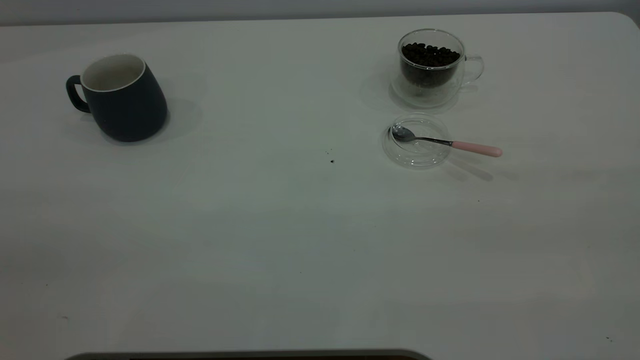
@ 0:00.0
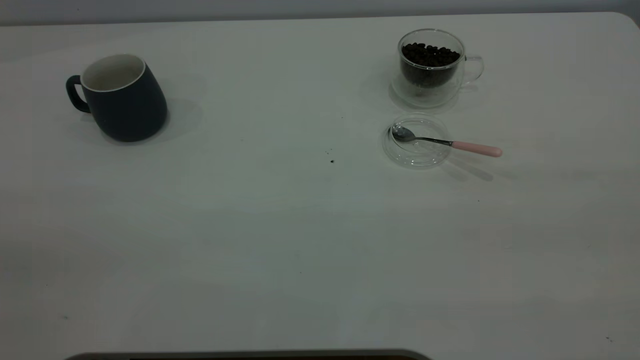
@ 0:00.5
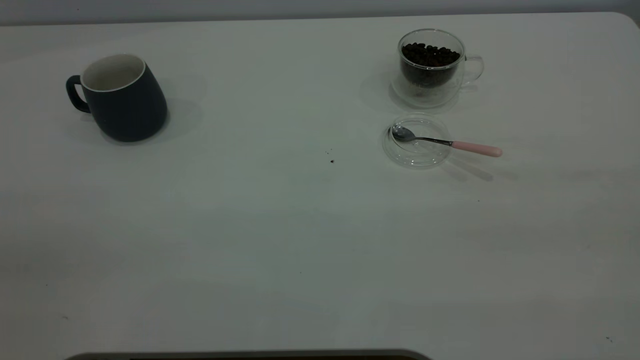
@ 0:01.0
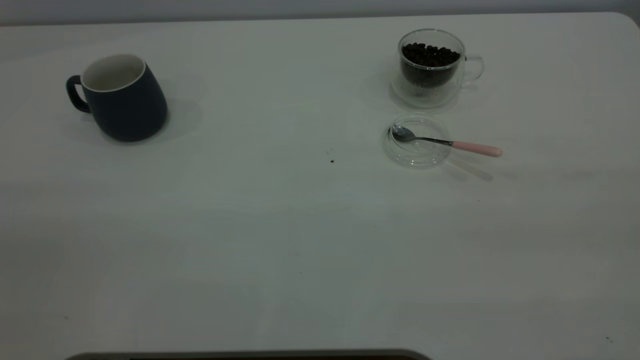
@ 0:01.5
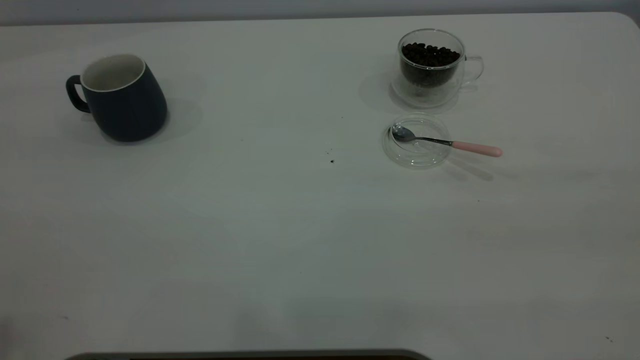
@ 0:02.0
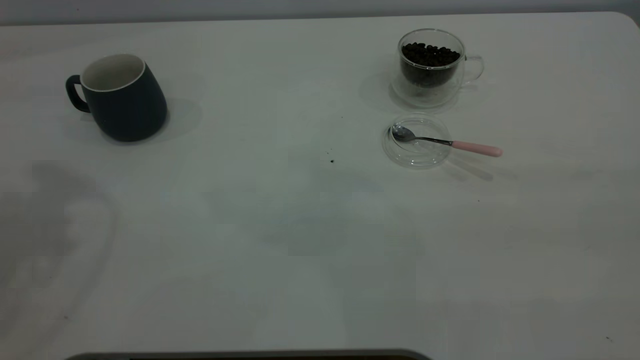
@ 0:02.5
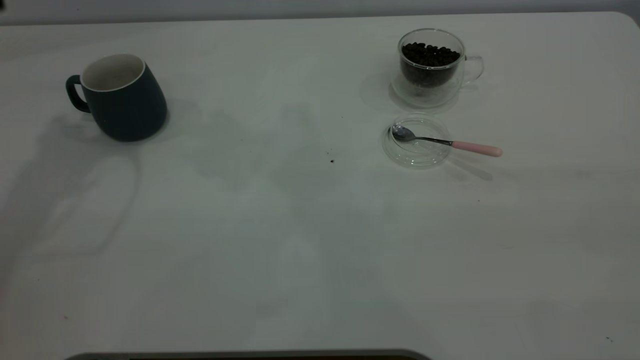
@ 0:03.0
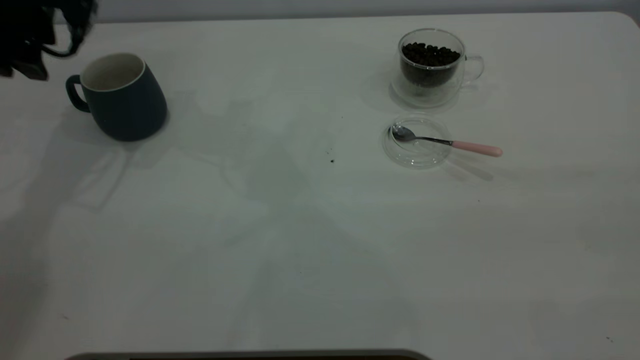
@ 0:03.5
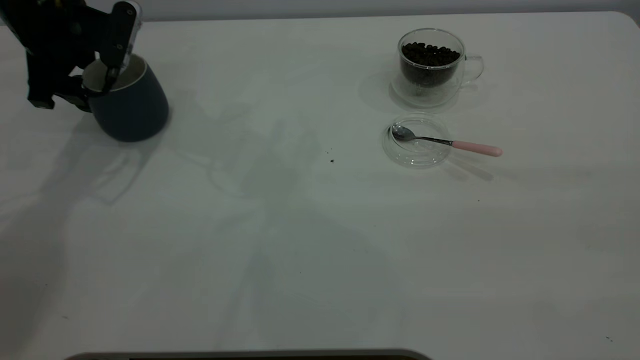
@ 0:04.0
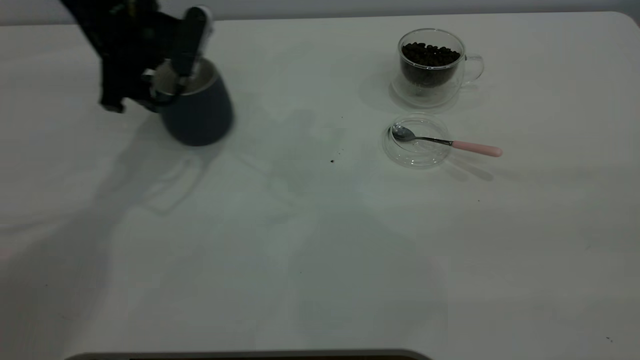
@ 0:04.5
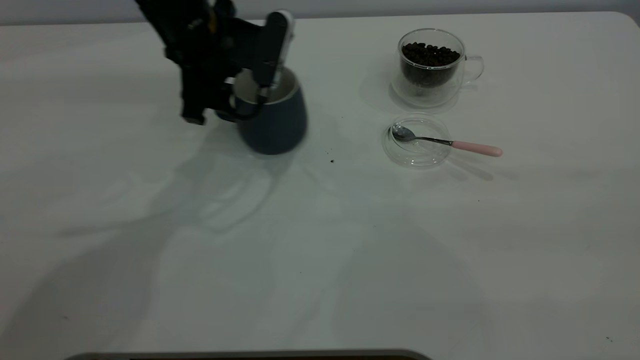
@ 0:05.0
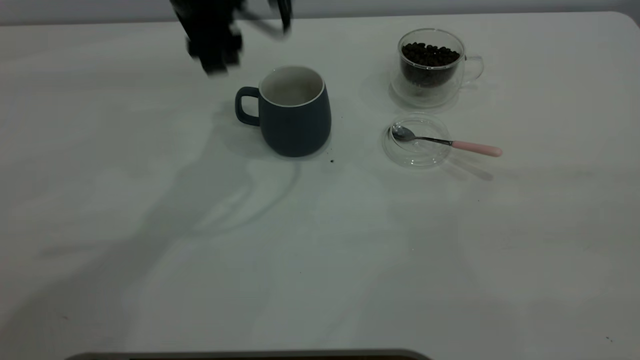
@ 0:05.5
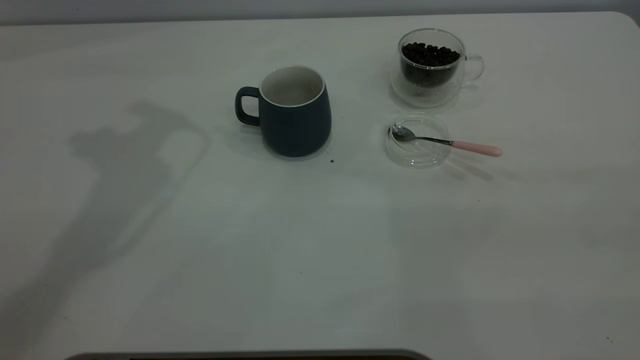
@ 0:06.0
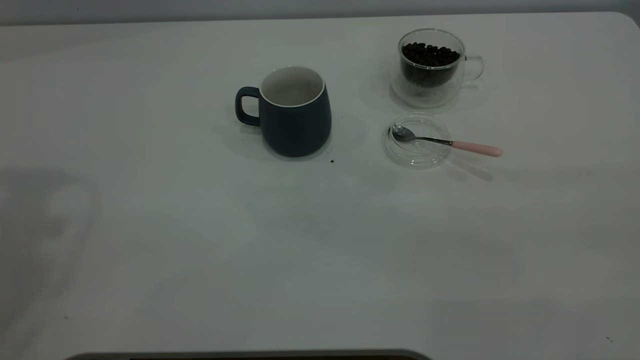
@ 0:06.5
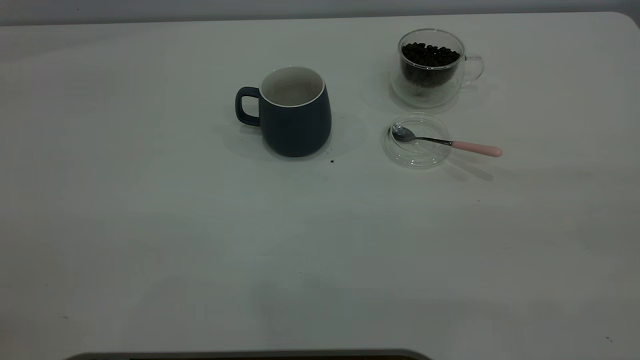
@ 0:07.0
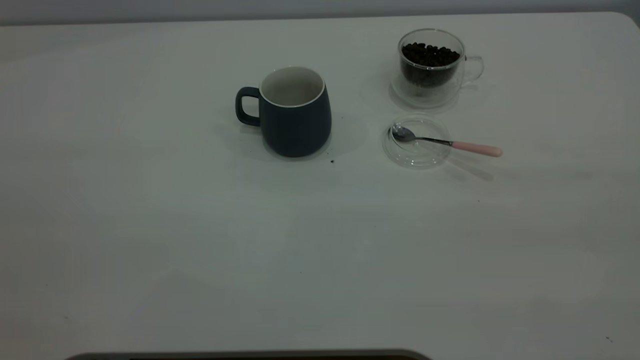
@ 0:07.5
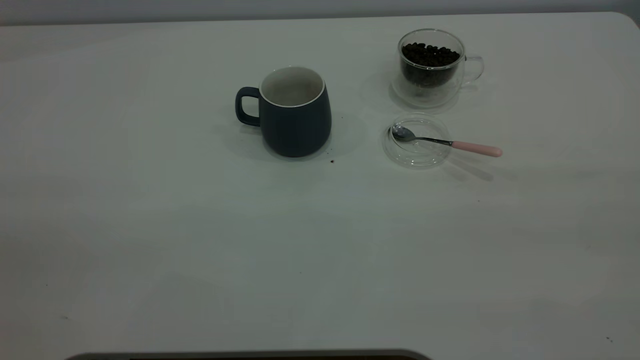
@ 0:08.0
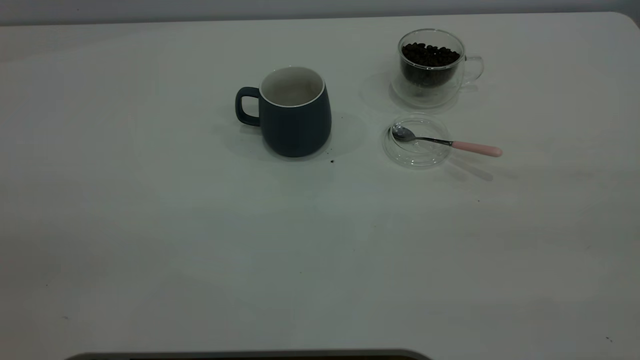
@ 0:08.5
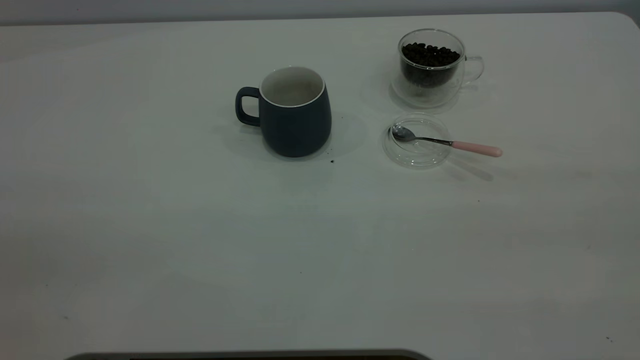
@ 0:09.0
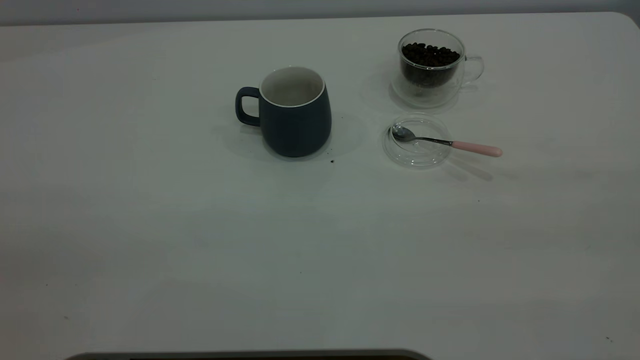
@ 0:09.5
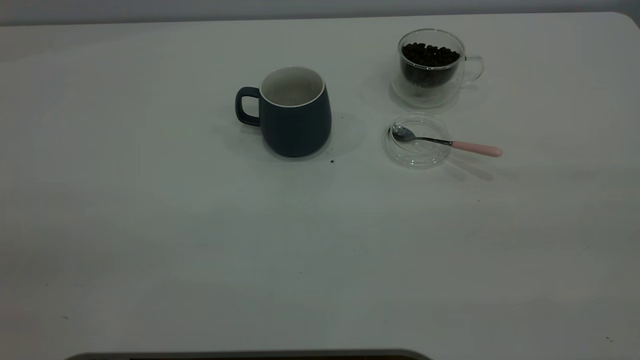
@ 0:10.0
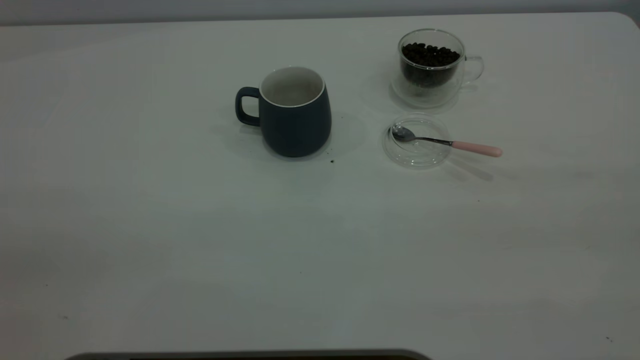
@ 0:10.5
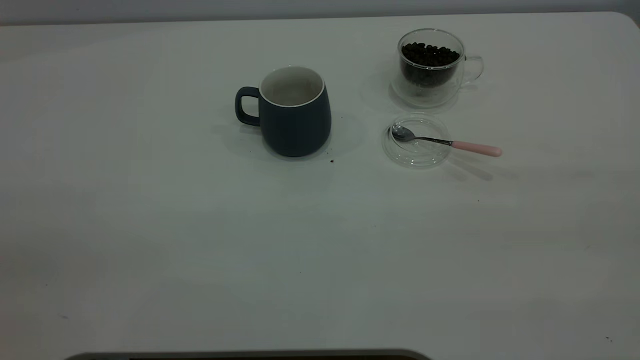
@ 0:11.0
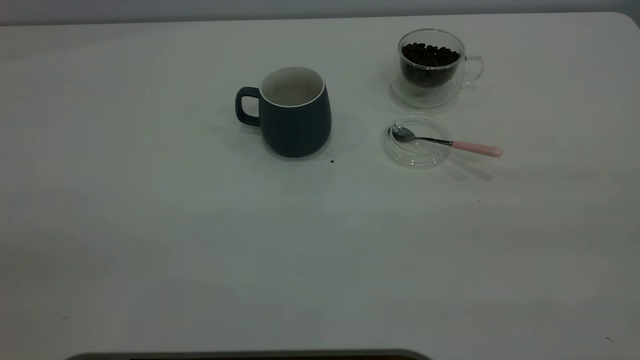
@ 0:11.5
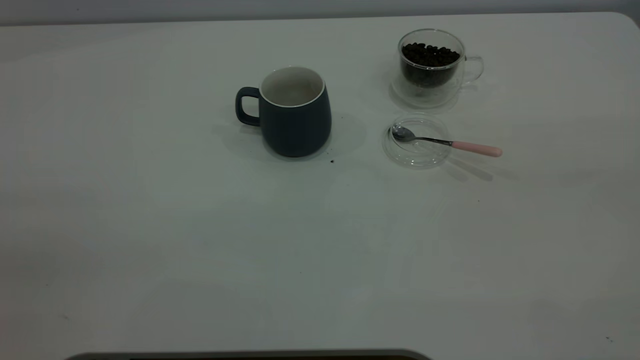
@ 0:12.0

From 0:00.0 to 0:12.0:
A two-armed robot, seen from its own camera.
Task of the whole recording: the left gripper place the grey cup in the center of the table, the right gripper take the pink spoon from the cup lid and scoop out the coffee beans from the coffee cup and put them into the grey cup, the right gripper put the spoon back into the cup lid.
Step, from 0:00.0 to 0:05.0: Move the cup to the center of view.
From 0:02.0 to 0:04.0: The left gripper goes approximately 40 cm forward and downward.
From 0:04.0 to 0:06.0: The left gripper is displaced upward by some 20 cm.

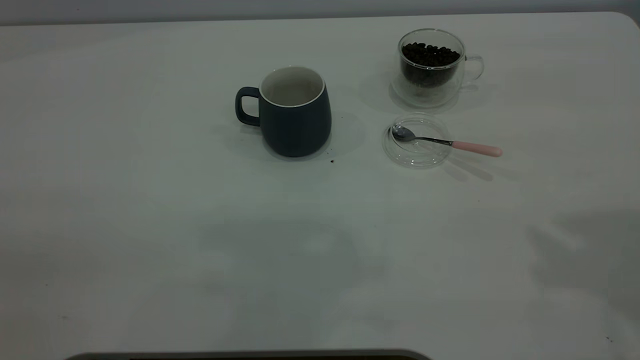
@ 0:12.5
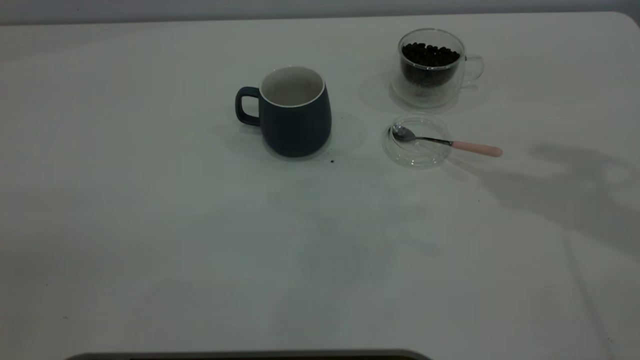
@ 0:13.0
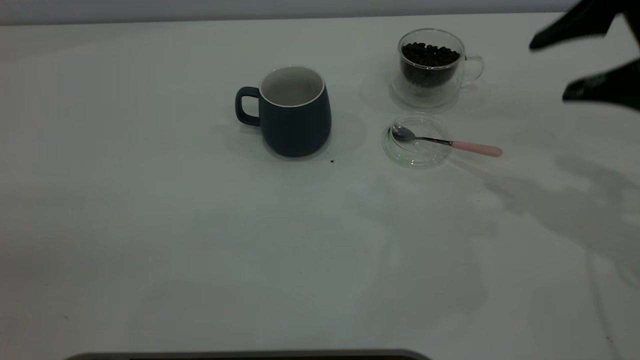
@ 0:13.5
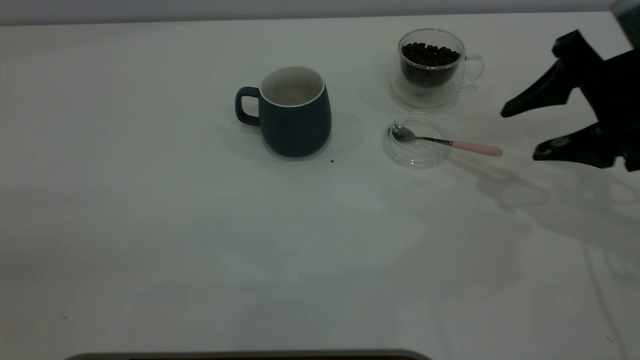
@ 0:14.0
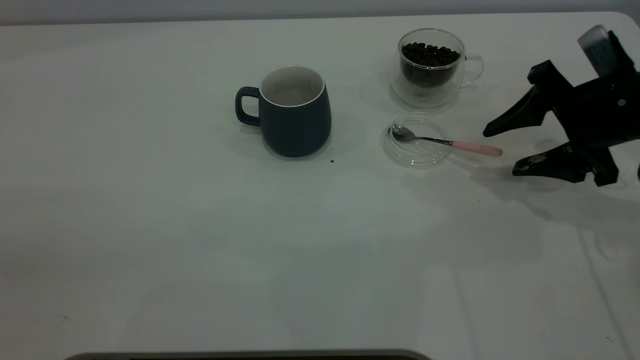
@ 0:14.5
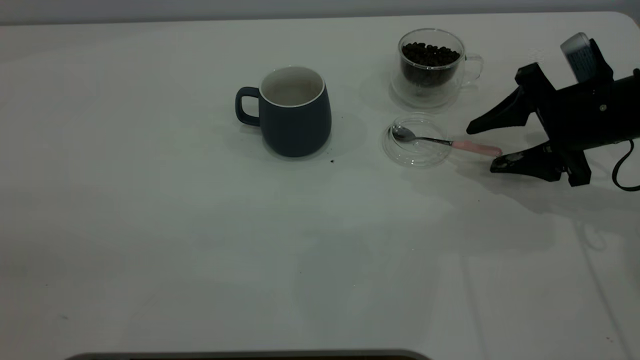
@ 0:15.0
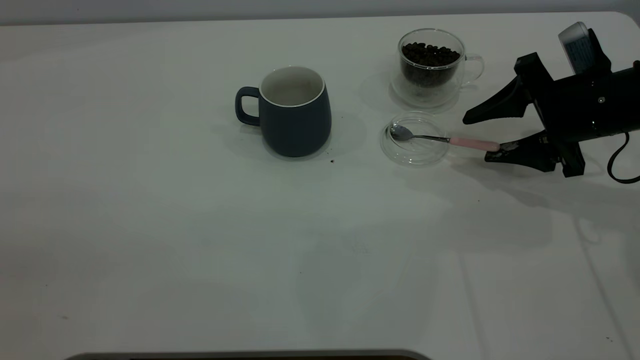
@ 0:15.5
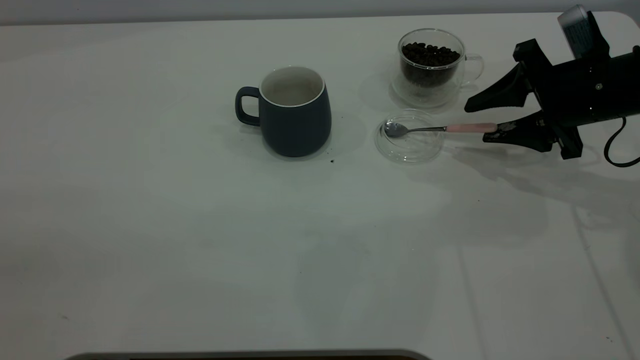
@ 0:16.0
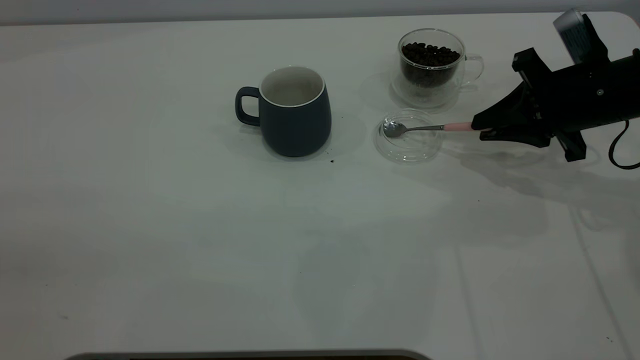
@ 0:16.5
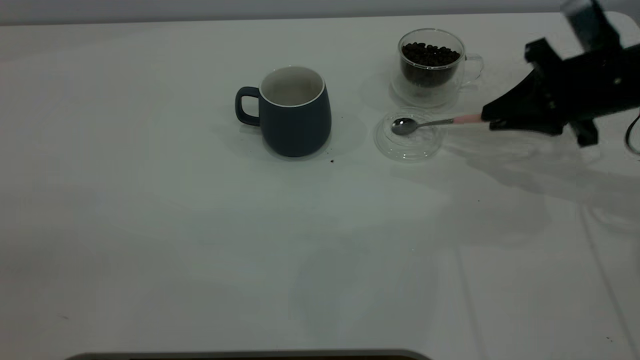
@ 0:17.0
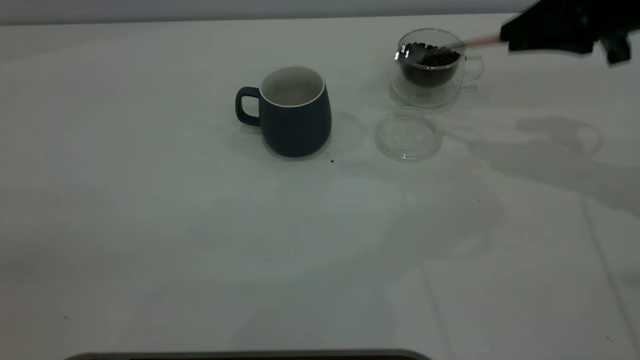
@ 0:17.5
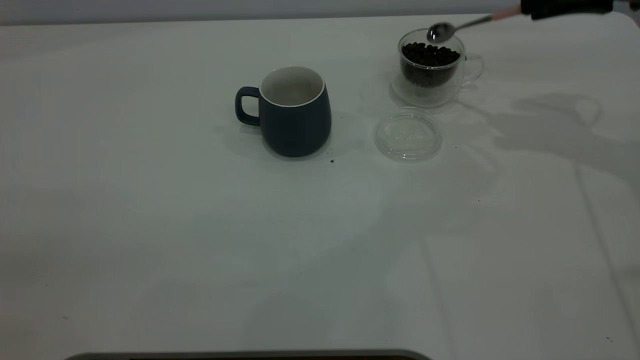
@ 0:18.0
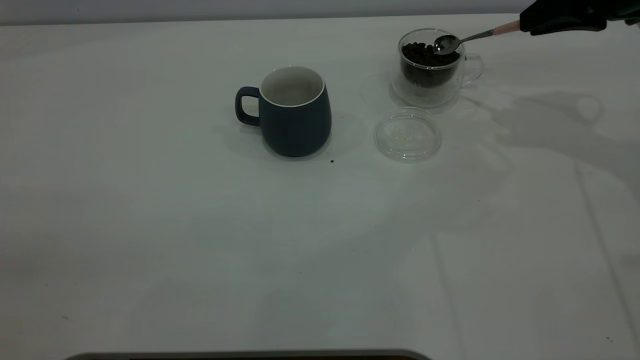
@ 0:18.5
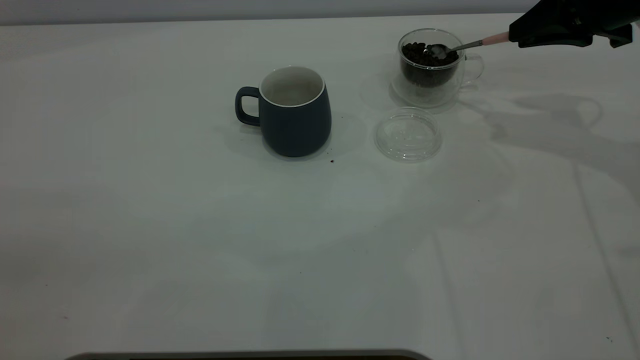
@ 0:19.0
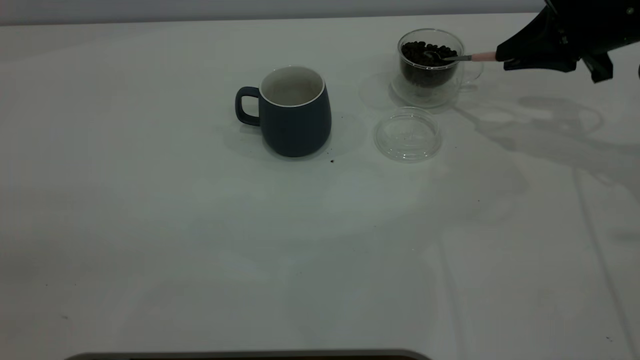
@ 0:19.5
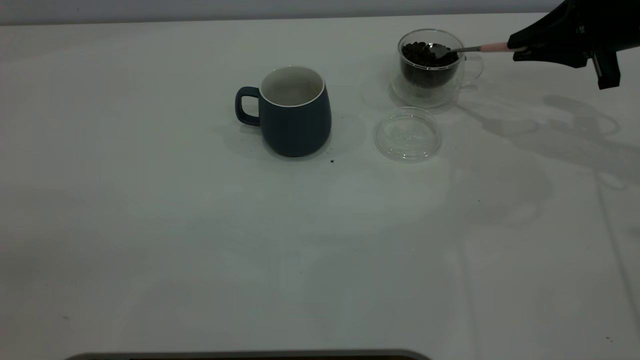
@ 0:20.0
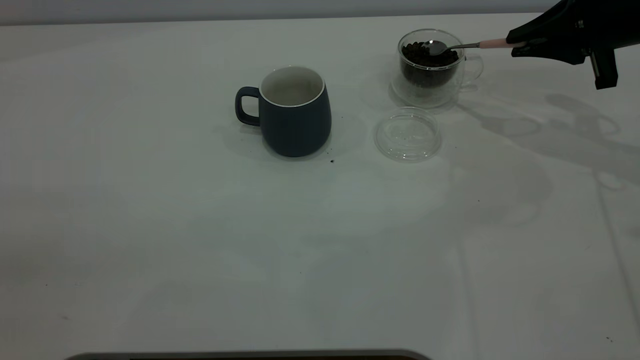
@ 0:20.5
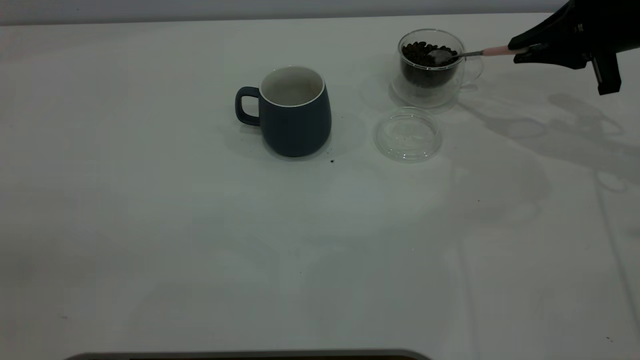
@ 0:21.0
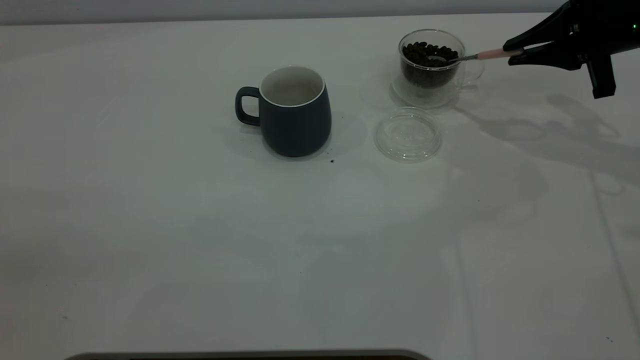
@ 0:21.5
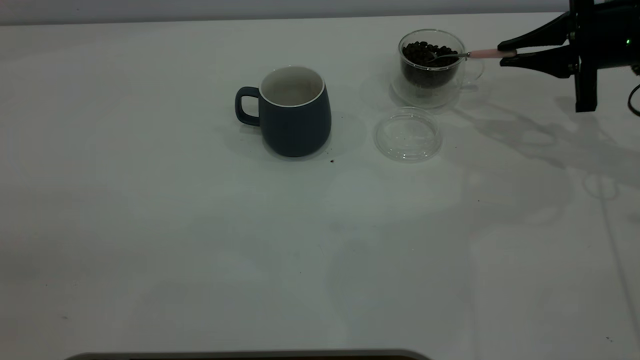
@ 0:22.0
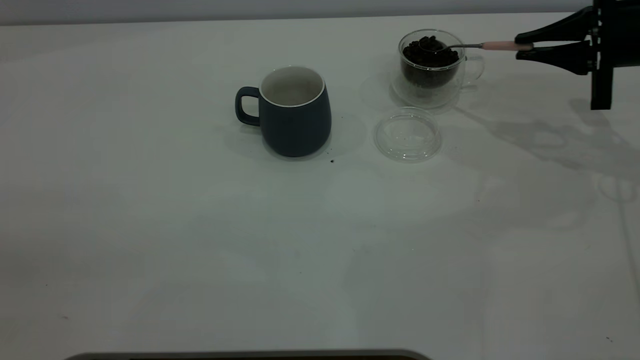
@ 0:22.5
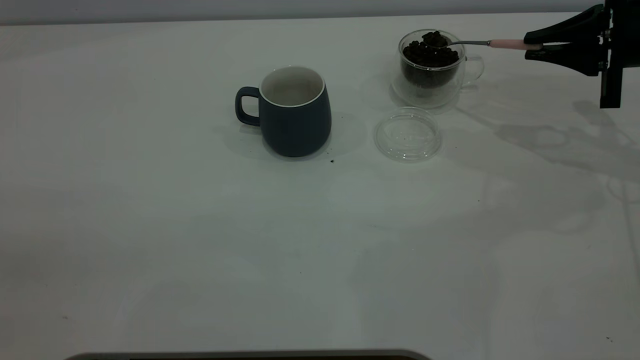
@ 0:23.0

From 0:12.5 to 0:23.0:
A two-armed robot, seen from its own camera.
Task of the whole recording: the left gripper place the grey cup in the center of the table, the right gripper take the pink spoon from the cup lid and scoop out the coffee beans from the coffee cup and put them into the grey cup, the right gripper put the spoon back into the cup lid.
Step, from 0:12.5 to 0:17.0: Pick up the spoon.
From 0:12.5 to 0:14.5: The right gripper travels downward by some 30 cm.
From 0:14.5 to 0:16.5: The right gripper closes.
From 0:16.5 to 0:19.0: The right gripper is displaced upward and forward by about 10 cm.
From 0:21.0 to 0:23.0: The grippers make only small movements.
